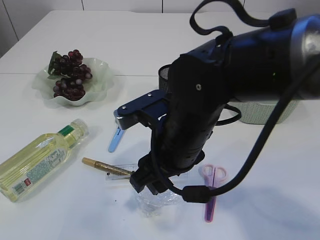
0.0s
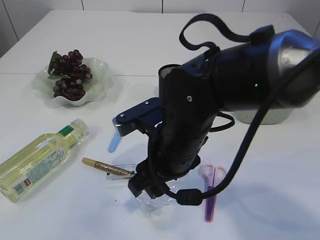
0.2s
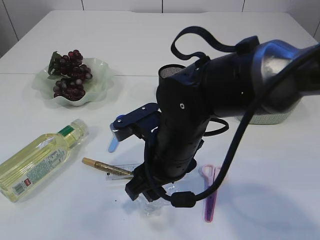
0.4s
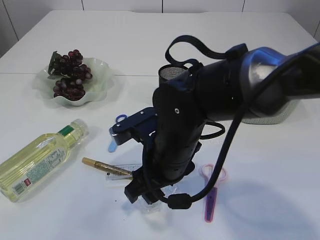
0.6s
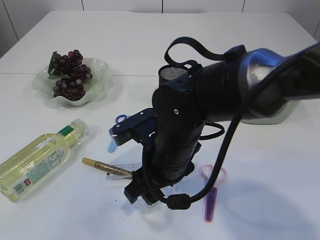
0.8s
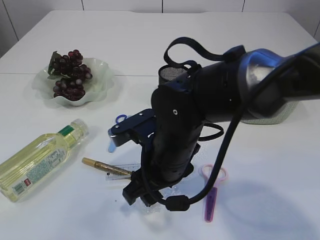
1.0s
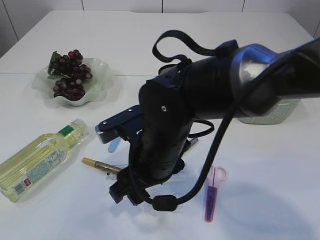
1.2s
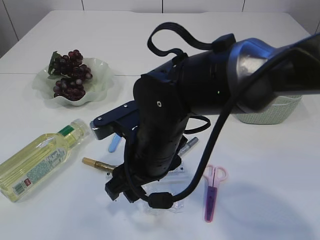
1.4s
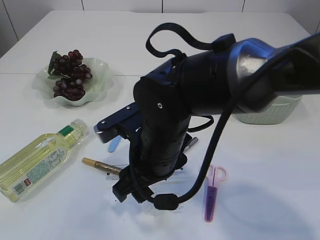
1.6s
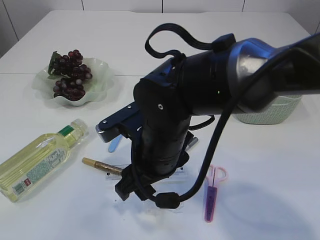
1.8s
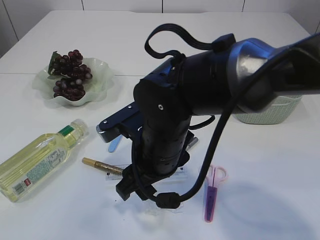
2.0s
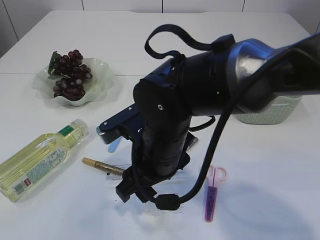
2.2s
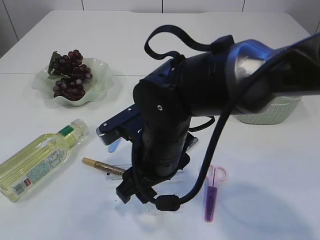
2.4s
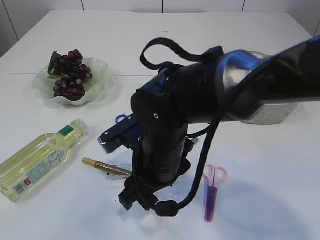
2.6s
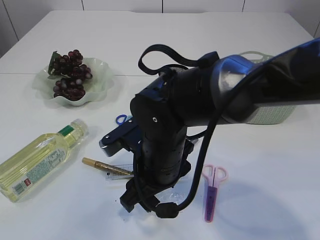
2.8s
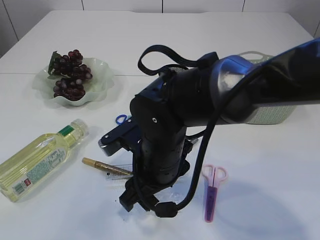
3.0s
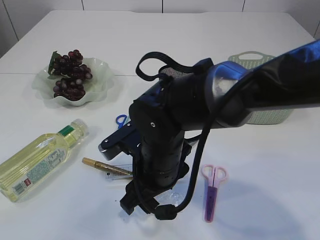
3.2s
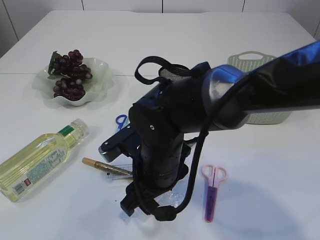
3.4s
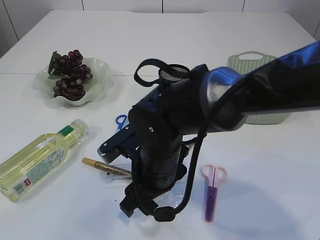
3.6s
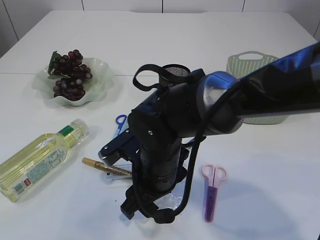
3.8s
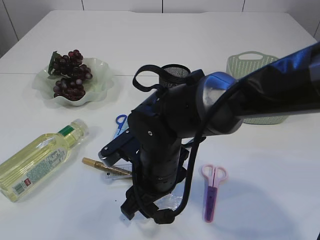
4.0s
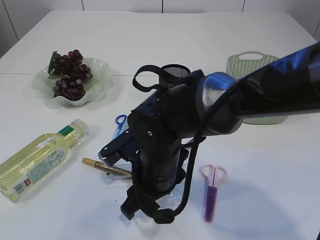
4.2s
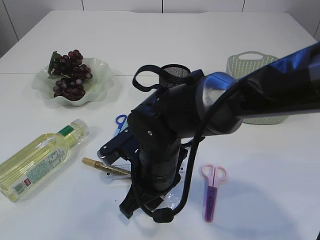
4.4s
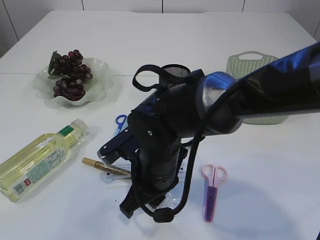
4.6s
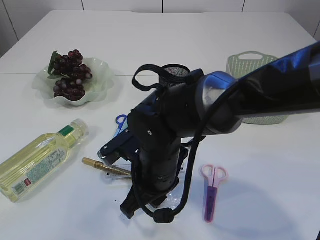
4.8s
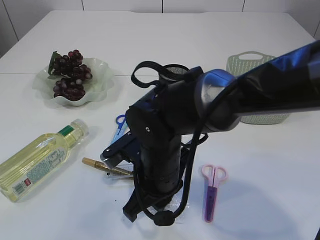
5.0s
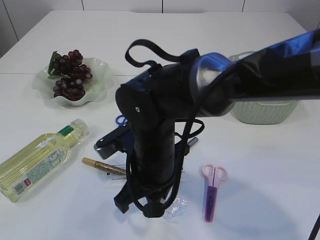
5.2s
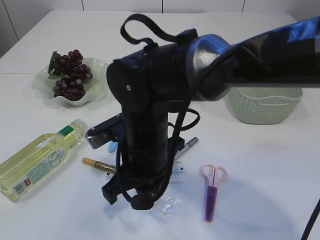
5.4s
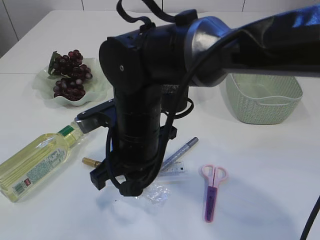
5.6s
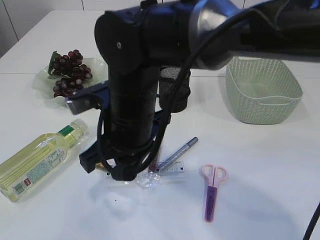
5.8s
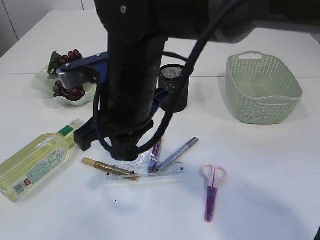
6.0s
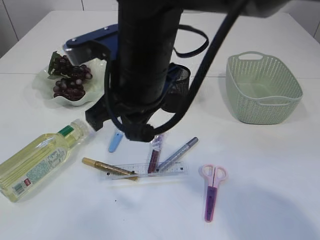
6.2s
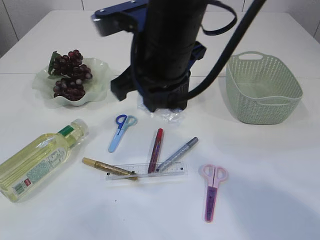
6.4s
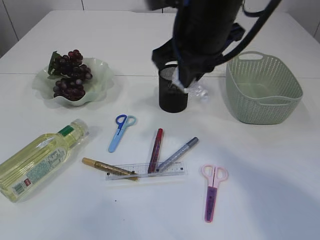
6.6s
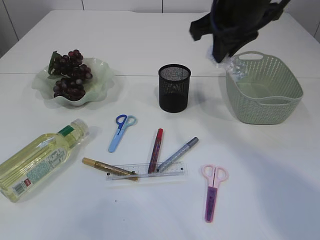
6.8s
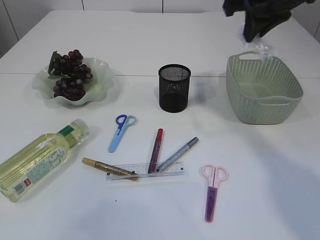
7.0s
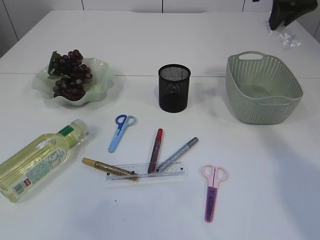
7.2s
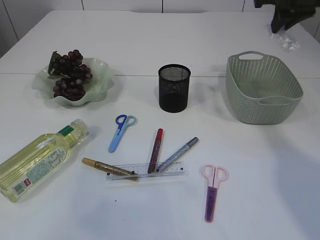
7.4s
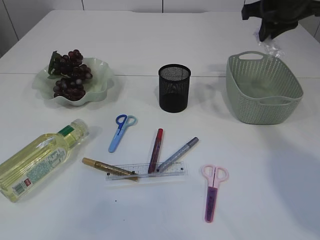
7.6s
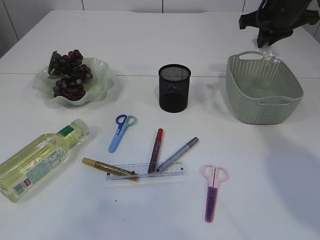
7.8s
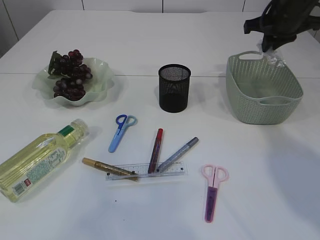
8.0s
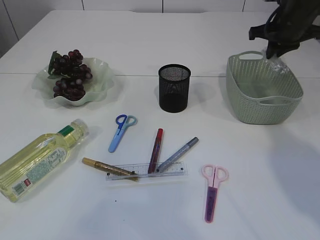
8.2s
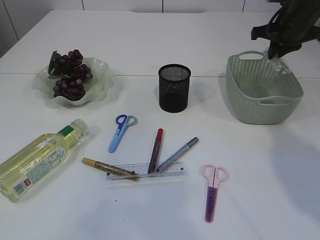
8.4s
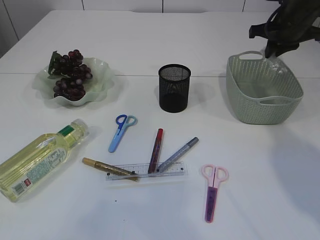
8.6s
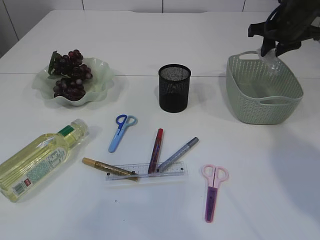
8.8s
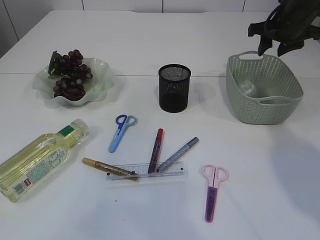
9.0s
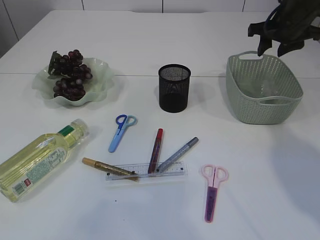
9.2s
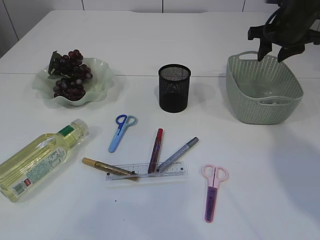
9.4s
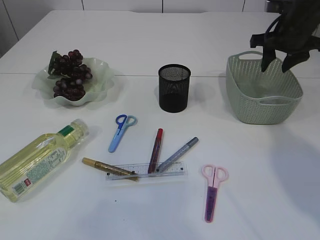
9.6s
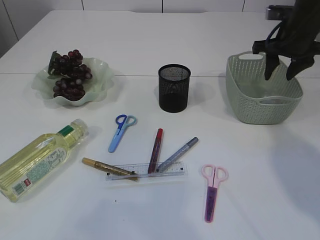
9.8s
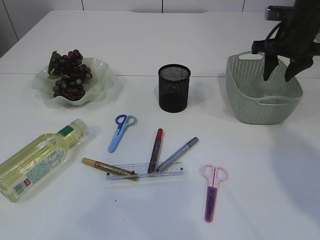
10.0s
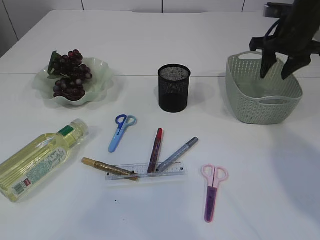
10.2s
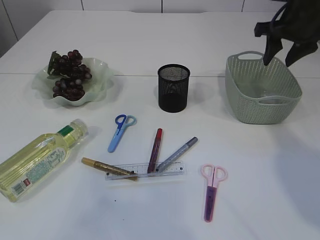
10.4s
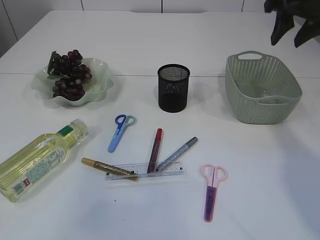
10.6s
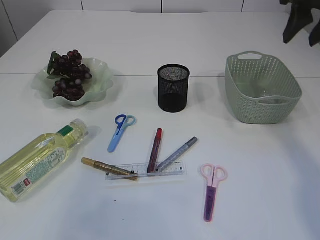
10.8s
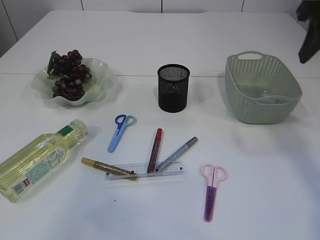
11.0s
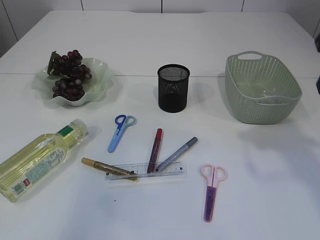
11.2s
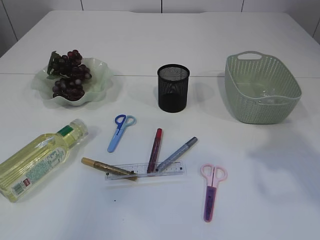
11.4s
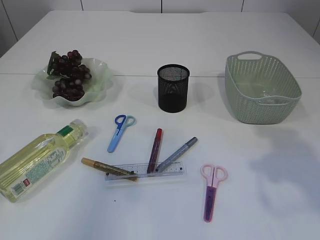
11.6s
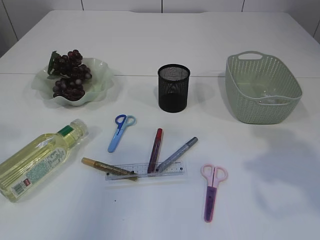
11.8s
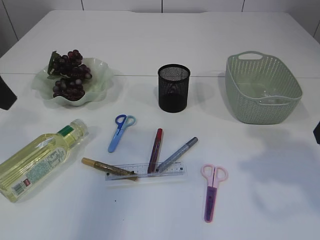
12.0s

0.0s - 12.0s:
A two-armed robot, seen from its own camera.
Step, 0.0s - 6.4s: Pick up the plastic.
Step, 6.6s - 10.0s: Place the plastic in the basket.
1.6s - 3.0s: The grippers move only a little.
3.0s - 4.4s: The right gripper closes up.
4.4s - 6.0s: The right gripper goes approximately 15 cm upward, and closes its fingers.
6.0s - 7.6s: The right gripper shifts about 30 cm to the right and forward.
7.6s - 9.0s: The right gripper goes roughly 5 cm downward, and opens up.
9.0s - 10.4s: The grippers stay close to where they were, moving slightly.
10.4s - 12.0s: The right gripper moves backward, approximately 25 cm.

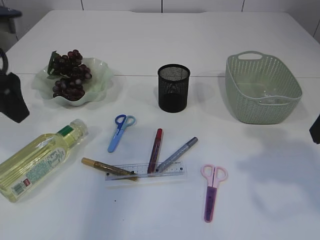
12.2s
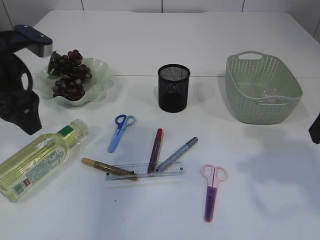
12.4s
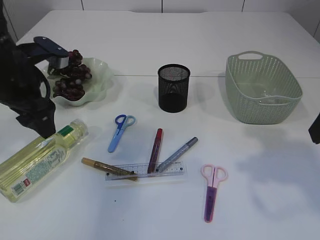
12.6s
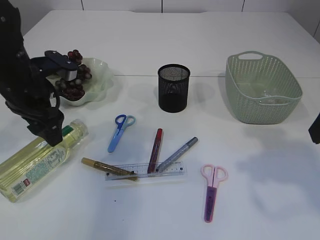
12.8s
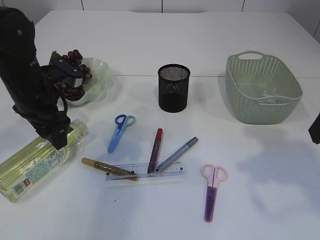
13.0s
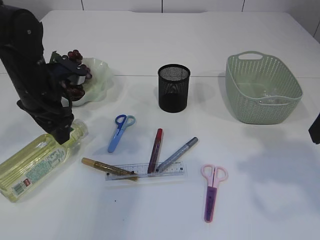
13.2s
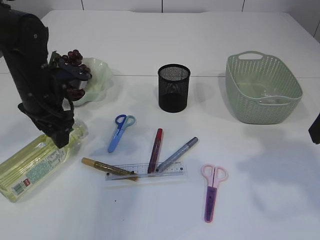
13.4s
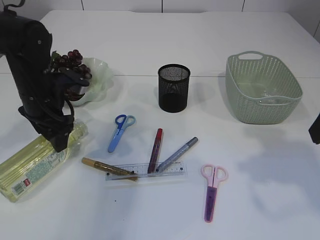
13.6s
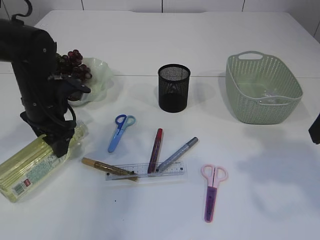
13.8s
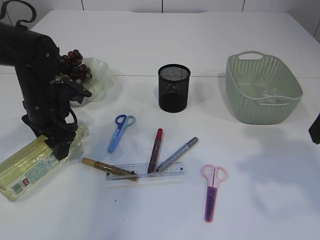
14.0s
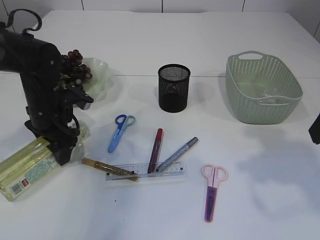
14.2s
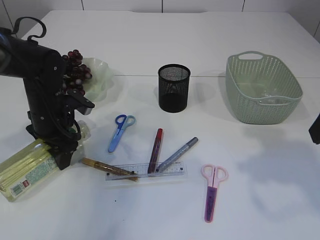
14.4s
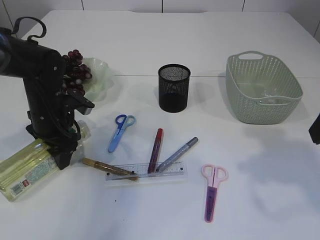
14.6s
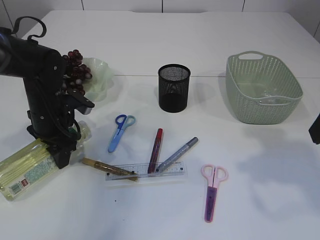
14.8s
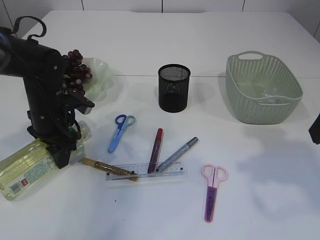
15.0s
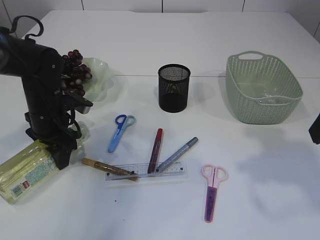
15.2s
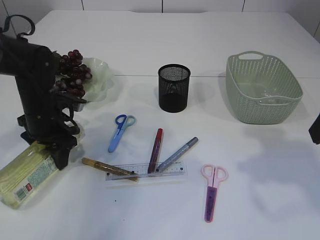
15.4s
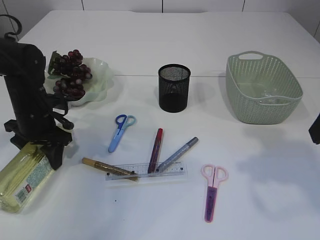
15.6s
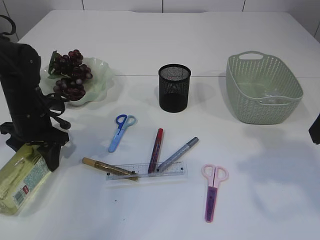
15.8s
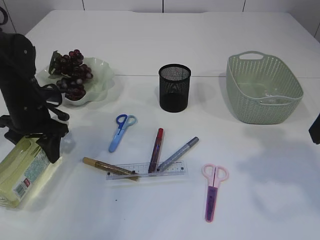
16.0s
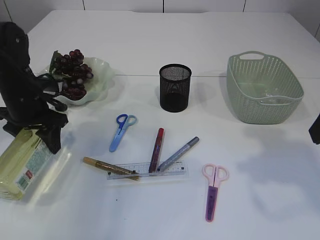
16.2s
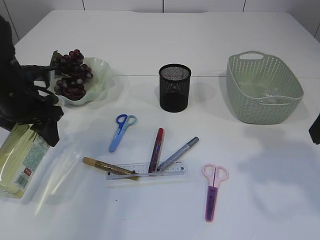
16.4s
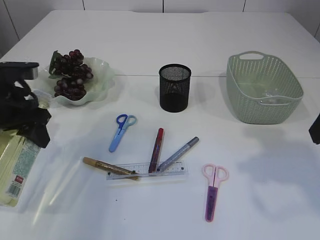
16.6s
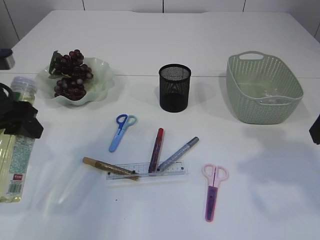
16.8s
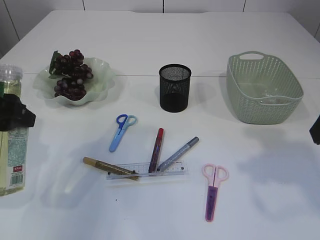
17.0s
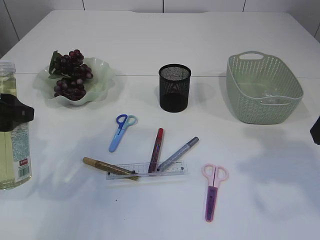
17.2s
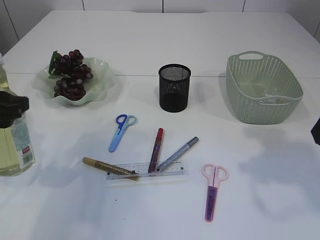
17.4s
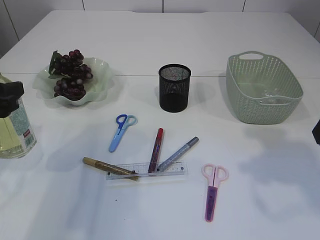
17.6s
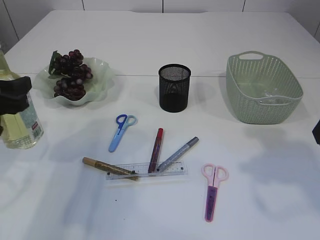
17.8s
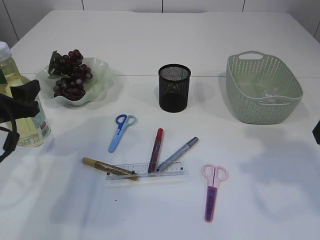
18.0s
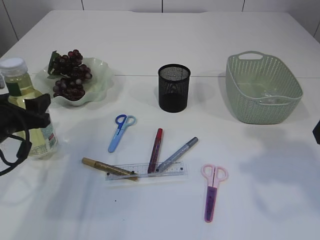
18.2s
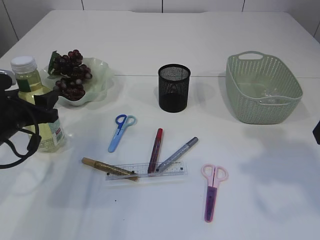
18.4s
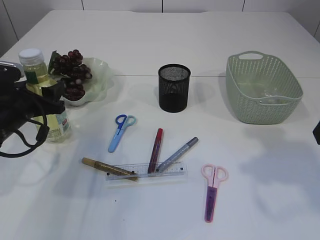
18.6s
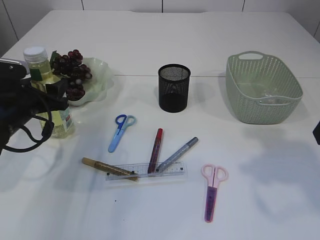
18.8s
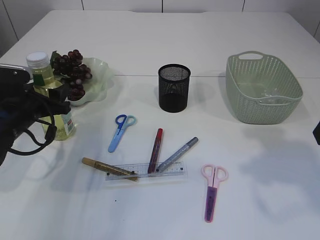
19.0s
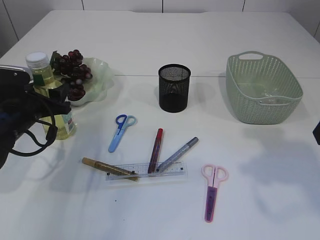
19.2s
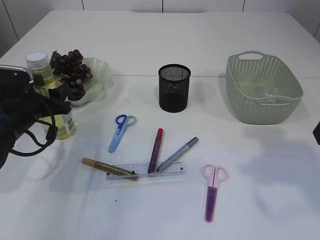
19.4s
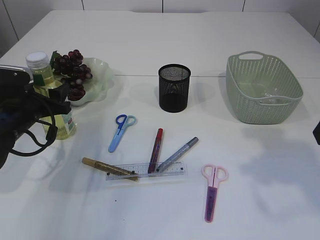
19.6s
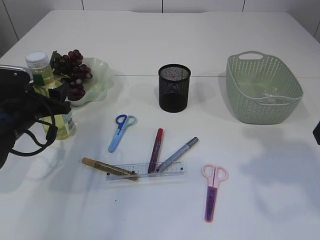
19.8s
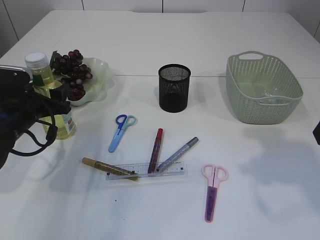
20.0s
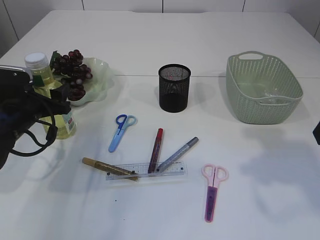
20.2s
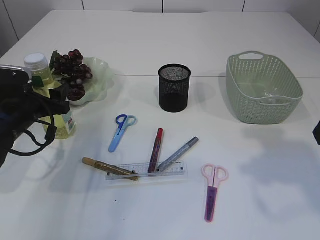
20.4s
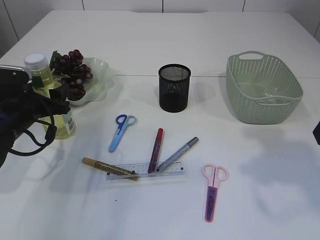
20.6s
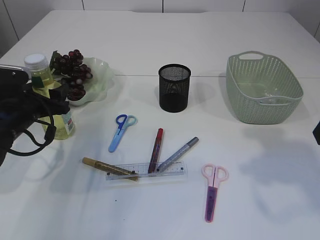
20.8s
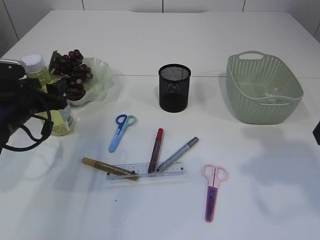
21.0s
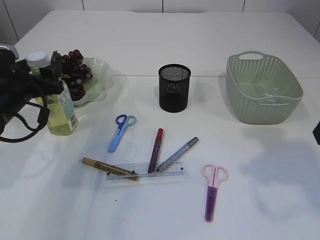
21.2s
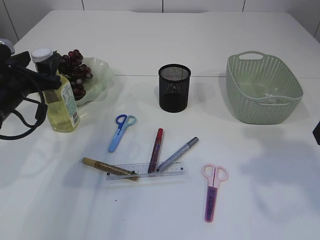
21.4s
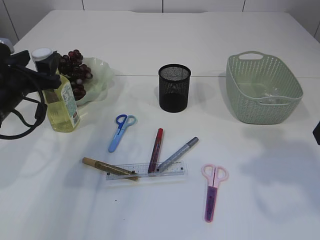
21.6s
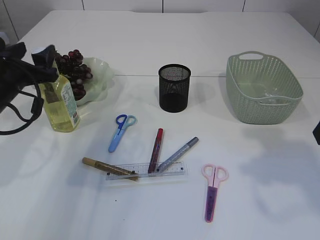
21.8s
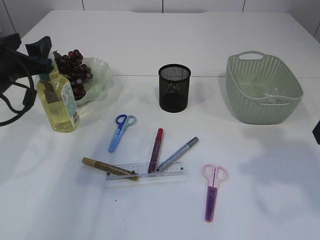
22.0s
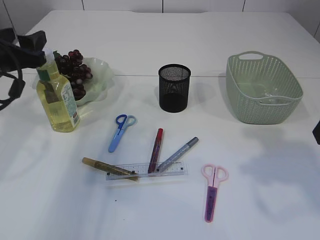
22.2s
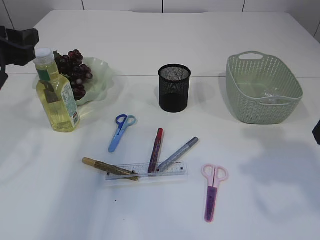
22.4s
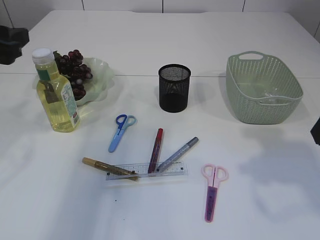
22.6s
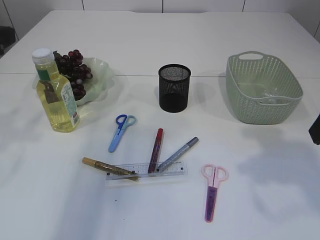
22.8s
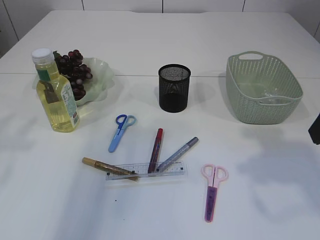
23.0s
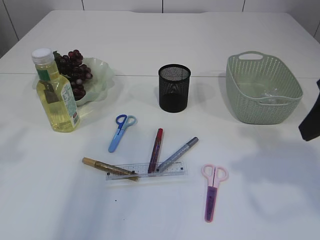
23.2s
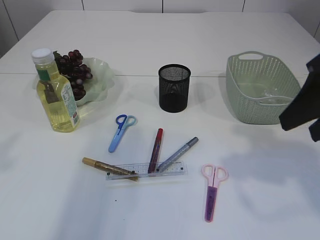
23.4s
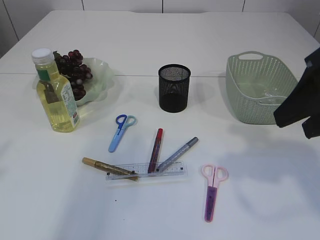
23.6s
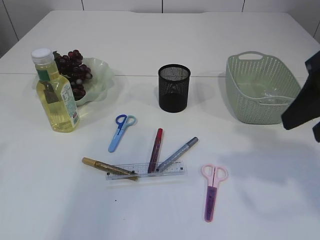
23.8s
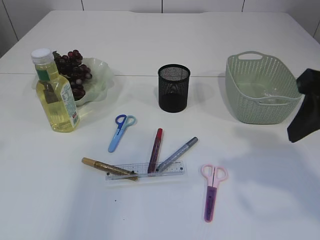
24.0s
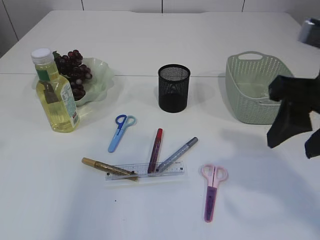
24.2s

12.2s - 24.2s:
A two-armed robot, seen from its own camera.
Step, 12.2s - 16.4s: Pick up the bottle with the left arm.
Step, 16.6s - 22.0s: Place the bottle.
12.2s - 13.8s: The left gripper goes approximately 15 cm downward and forward.
13.8s - 15.2s: There are only small adjustments of the grippers.
15.2s - 16.6s: The left gripper moves upward and backward, some 10 cm.
16.6s - 18.2s: The left gripper heads downward, covering about 5 cm.
18.2s - 19.8s: The left gripper goes about 5 cm forward.
19.8s - 21.2s: The grippers stay close to where they were, moving slightly.
21.2s - 22.6s: The left gripper goes approximately 15 cm upward and backward.
22.6s - 24.2s: The right gripper heads to the left, covering roughly 5 cm, while the left gripper goes approximately 20 cm backward and upward.
